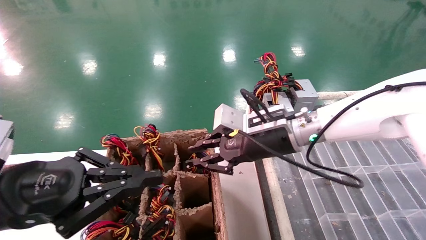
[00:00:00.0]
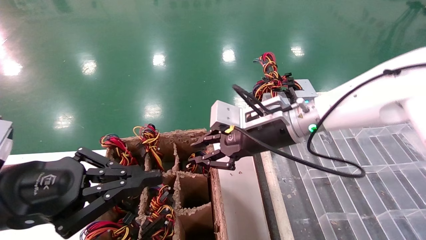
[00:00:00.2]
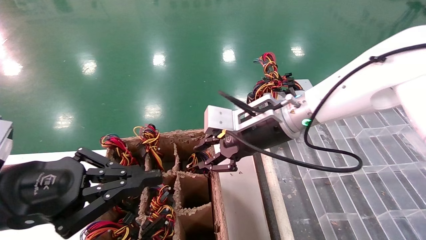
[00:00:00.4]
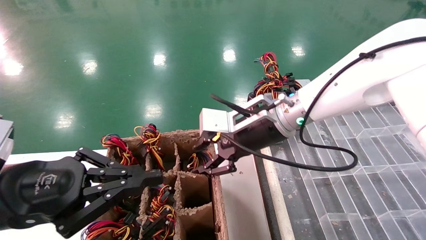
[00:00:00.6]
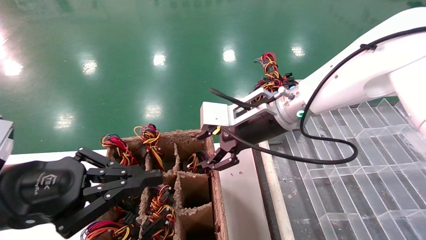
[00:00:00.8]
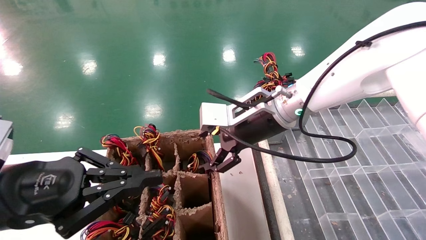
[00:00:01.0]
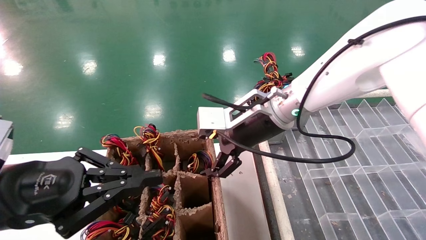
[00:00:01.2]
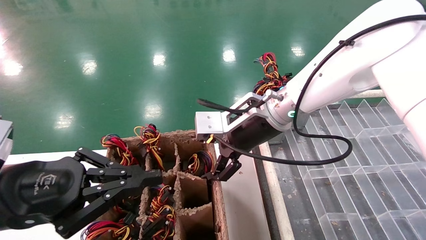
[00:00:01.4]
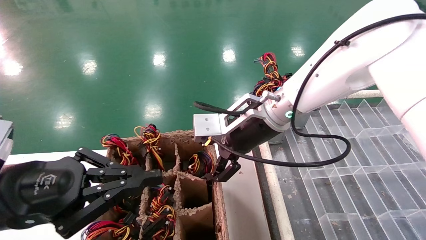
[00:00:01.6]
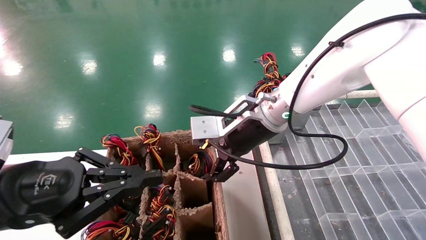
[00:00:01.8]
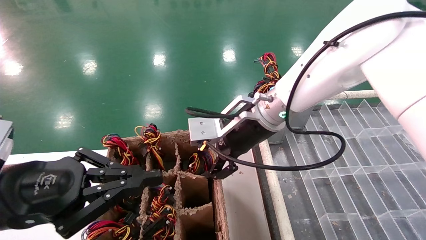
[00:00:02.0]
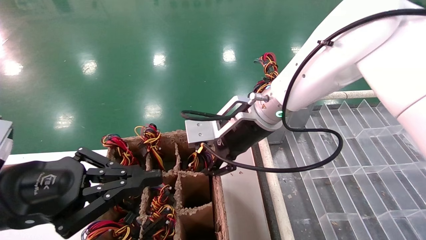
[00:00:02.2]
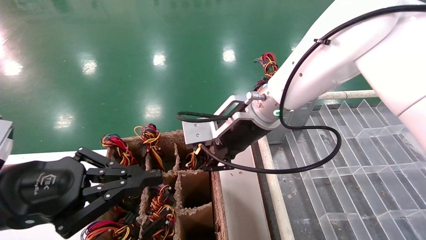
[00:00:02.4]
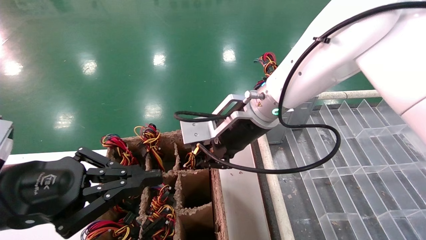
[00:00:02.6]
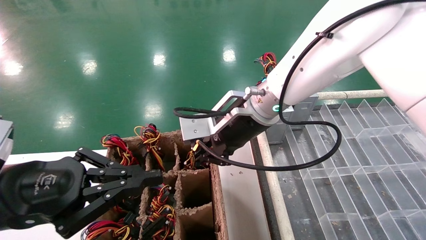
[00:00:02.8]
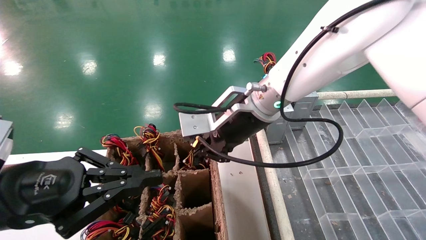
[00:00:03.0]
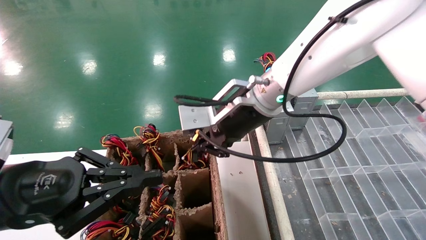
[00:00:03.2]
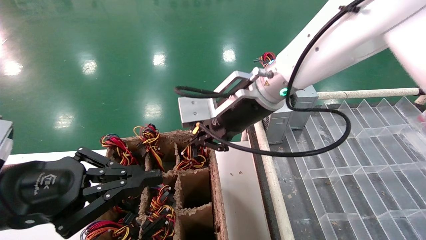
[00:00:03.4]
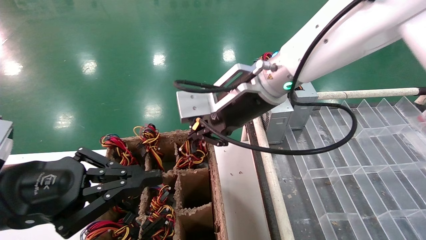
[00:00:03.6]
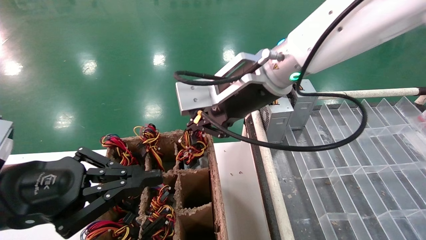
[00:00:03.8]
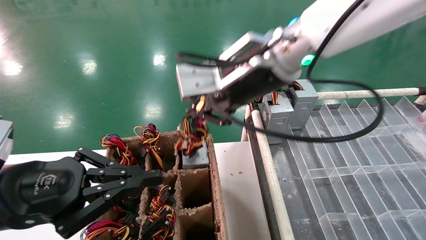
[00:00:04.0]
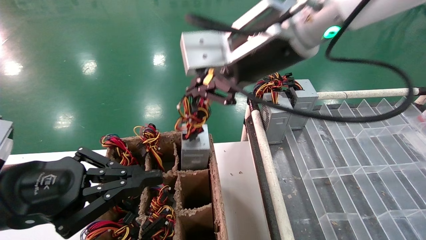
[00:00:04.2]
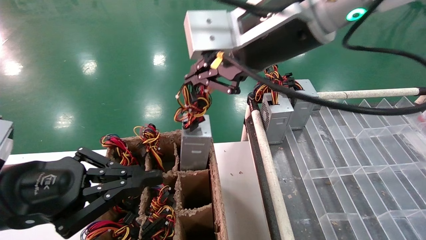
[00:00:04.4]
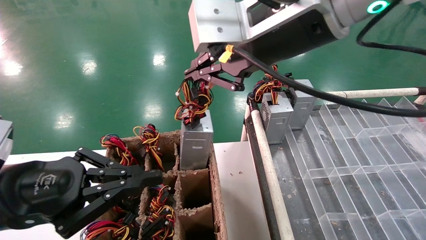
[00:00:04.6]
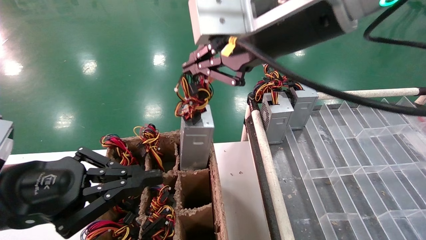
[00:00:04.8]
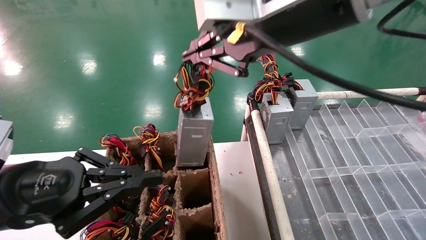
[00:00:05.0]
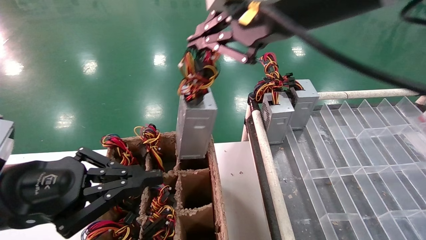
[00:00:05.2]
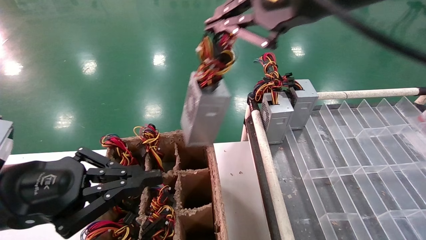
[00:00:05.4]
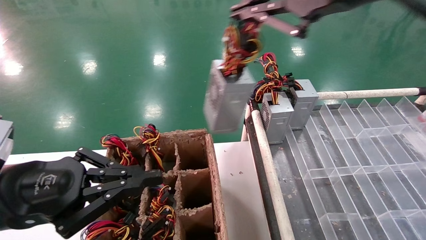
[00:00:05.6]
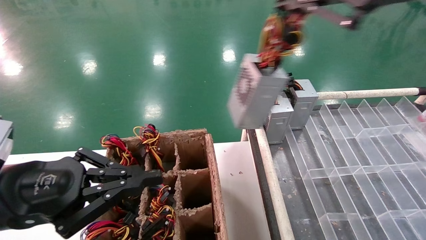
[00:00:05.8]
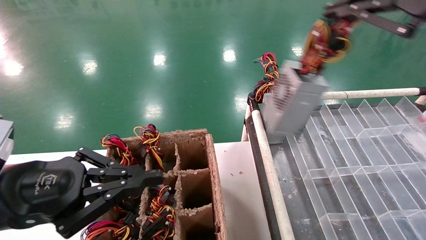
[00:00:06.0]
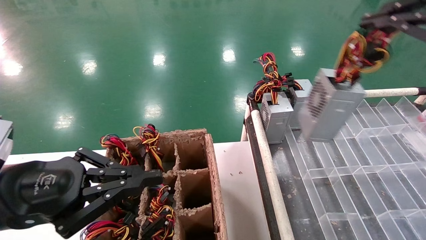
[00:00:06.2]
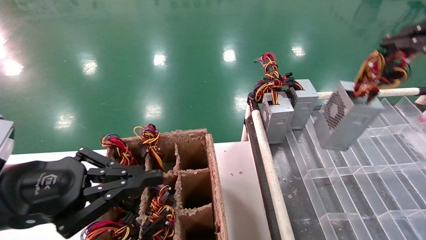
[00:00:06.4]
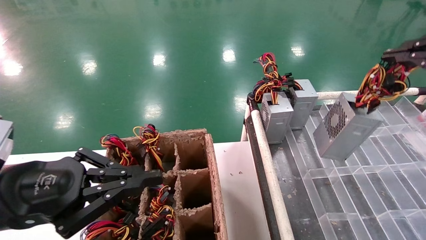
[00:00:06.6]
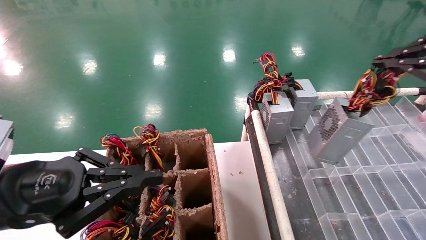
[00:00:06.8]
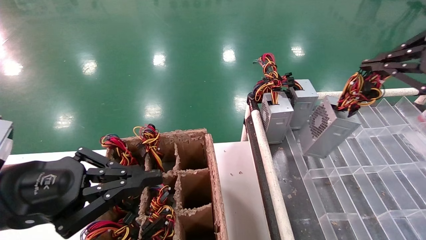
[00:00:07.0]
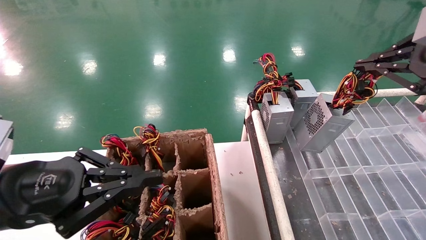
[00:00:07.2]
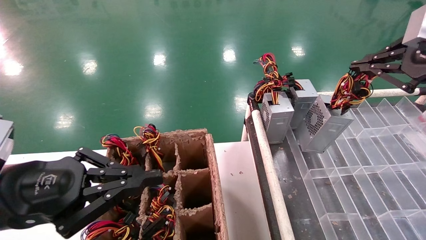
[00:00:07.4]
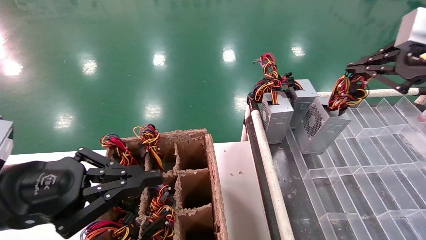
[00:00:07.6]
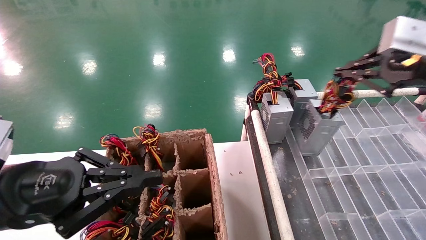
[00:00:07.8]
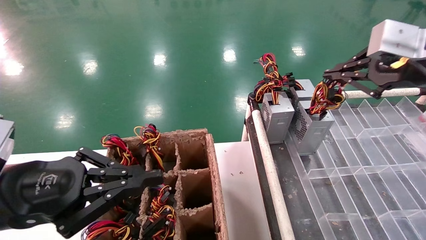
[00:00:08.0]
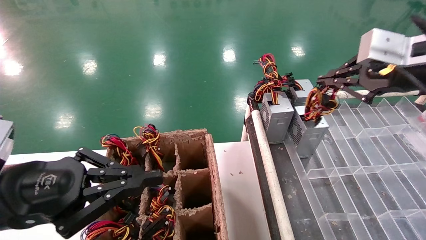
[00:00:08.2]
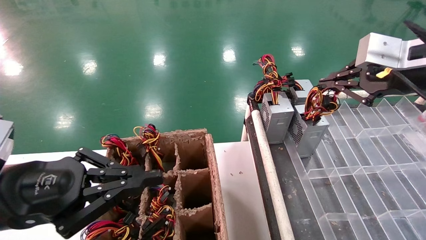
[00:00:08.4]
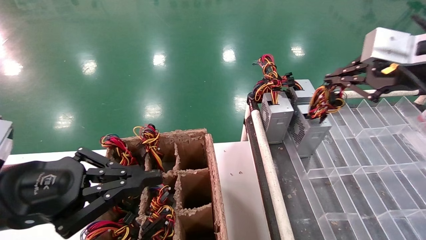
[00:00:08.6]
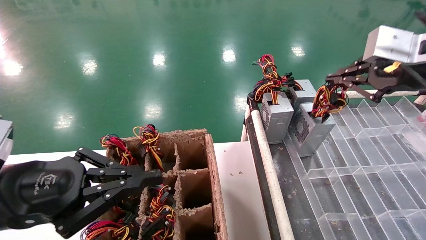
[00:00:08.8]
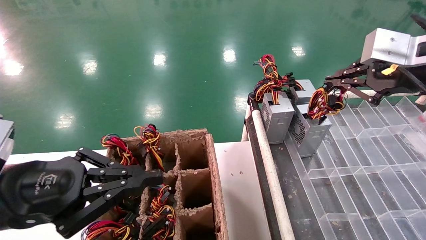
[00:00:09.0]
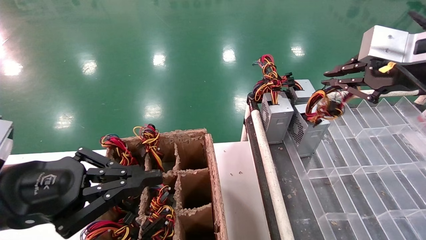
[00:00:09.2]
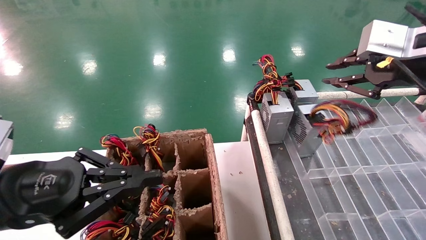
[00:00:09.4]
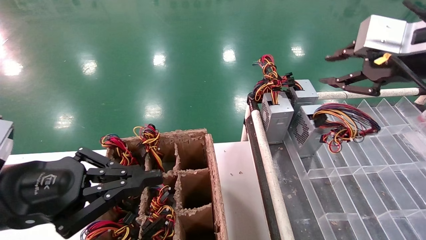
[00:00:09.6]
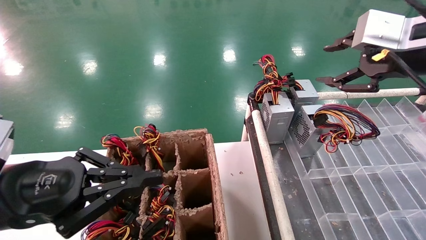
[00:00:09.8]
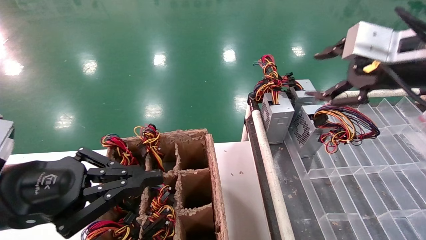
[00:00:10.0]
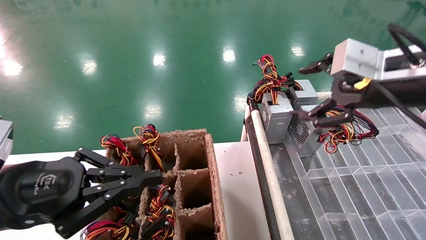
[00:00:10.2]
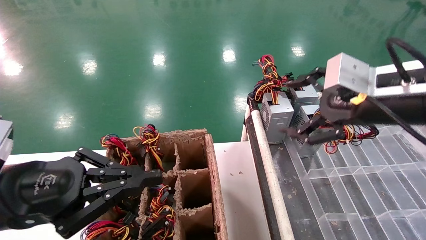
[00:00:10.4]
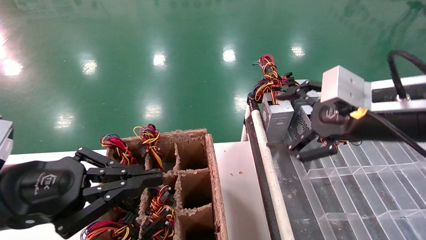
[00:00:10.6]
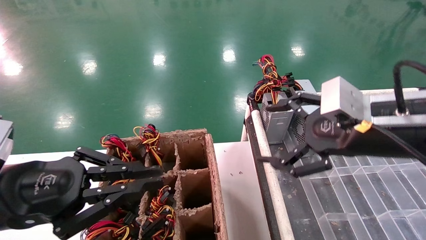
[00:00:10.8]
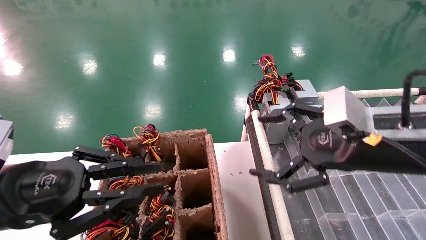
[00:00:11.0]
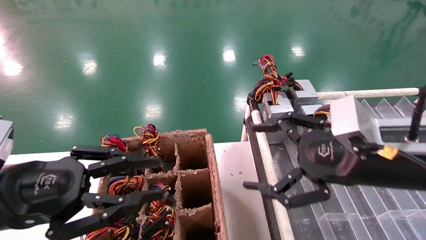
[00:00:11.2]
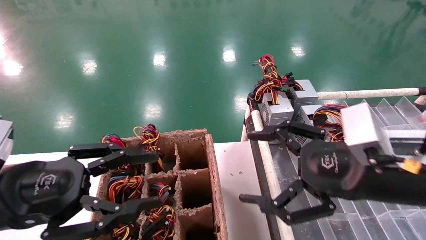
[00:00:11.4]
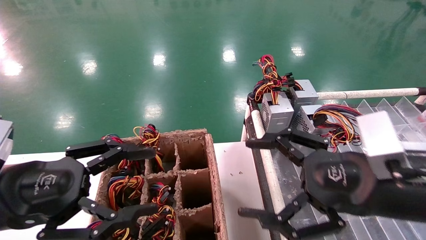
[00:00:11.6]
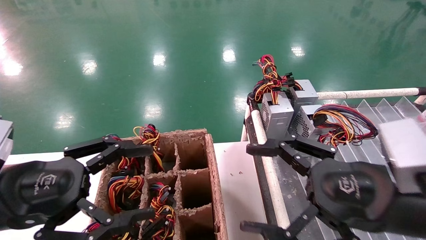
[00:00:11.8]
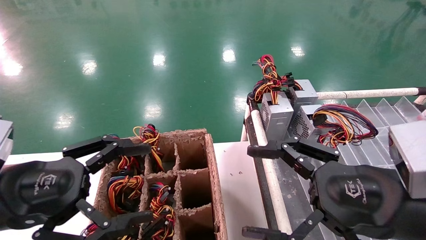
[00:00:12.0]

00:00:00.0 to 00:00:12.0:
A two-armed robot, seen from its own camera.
Step, 00:00:00.0 to 00:00:03.0: Grab the main unit power supply from the containment box.
Step, 00:00:03.2 to 00:00:09.2: Place the main unit power supply in the designated area.
00:00:00.0 to 00:00:01.6: The right gripper changes place by about 5 cm, and opens its fingers.
00:00:01.6 to 00:00:03.0: The right gripper closes up.
00:00:03.0 to 00:00:04.4: The right gripper moves upward and backward, some 15 cm.
00:00:04.4 to 00:00:06.0: The right gripper travels to the right and backward by approximately 20 cm.
00:00:06.0 to 00:00:07.6: The right gripper goes about 15 cm forward, to the right and downward.
00:00:07.6 to 00:00:09.0: There are only small adjustments of the grippers.
00:00:09.0 to 00:00:10.4: The right gripper shifts approximately 10 cm to the left and downward, and opens.
00:00:10.4 to 00:00:12.0: The right gripper travels downward and backward by some 15 cm. Meanwhile the left gripper opens up.
